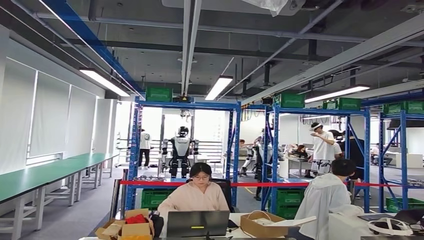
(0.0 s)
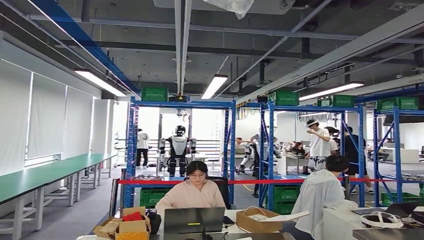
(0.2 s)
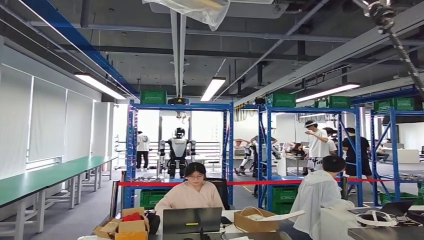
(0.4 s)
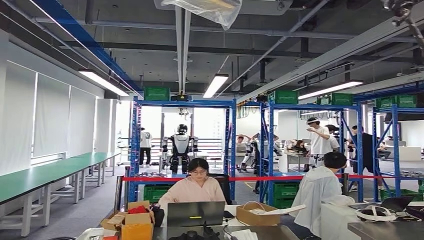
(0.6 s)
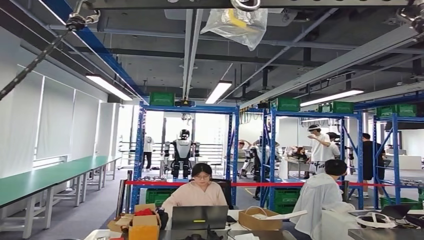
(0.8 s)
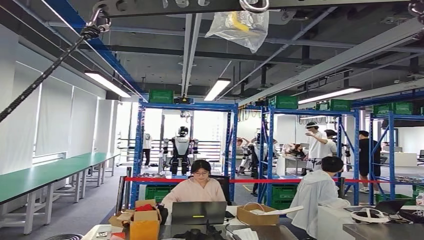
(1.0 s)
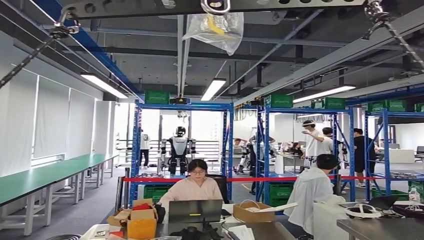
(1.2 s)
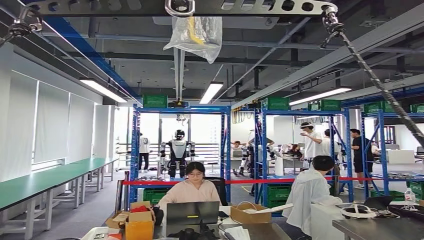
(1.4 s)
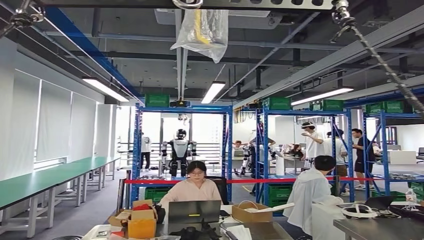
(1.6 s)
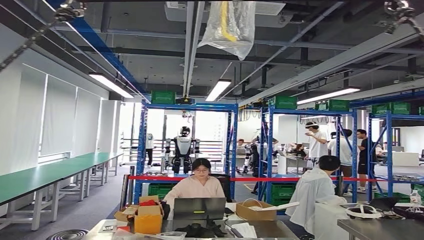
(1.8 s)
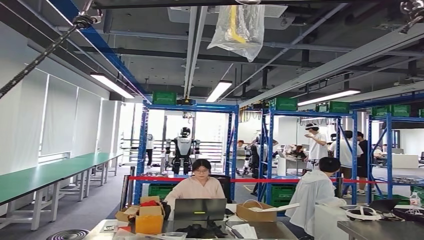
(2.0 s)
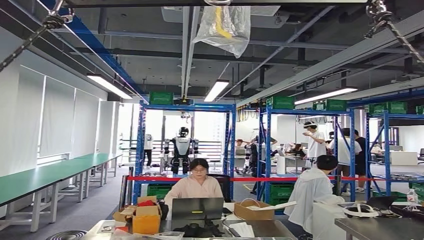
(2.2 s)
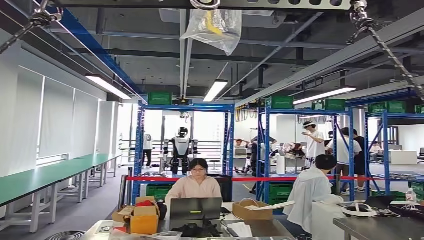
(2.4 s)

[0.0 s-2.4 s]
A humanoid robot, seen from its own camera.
Step, 0.0 to 2.2 s: Return to the initial position at the workbench.
